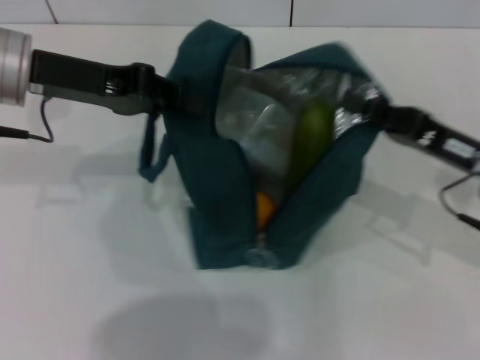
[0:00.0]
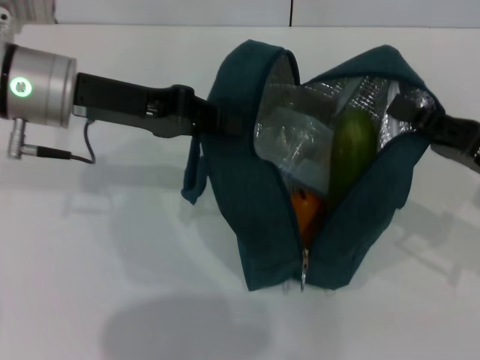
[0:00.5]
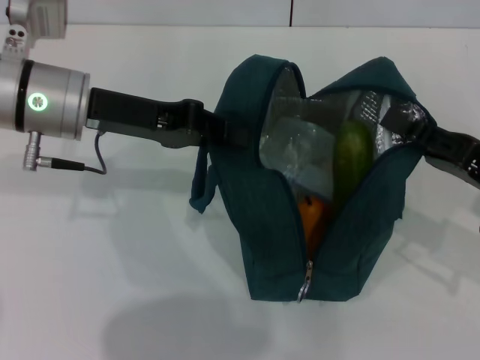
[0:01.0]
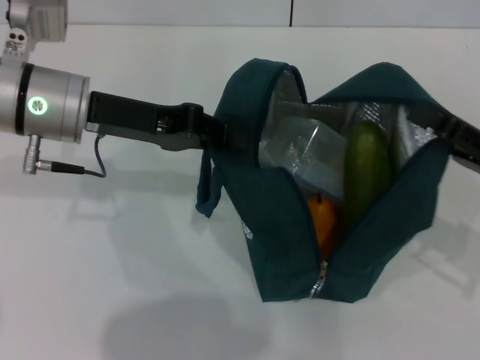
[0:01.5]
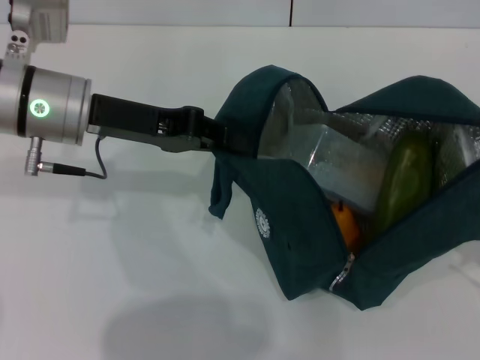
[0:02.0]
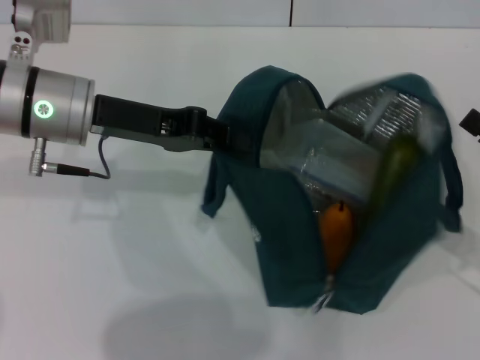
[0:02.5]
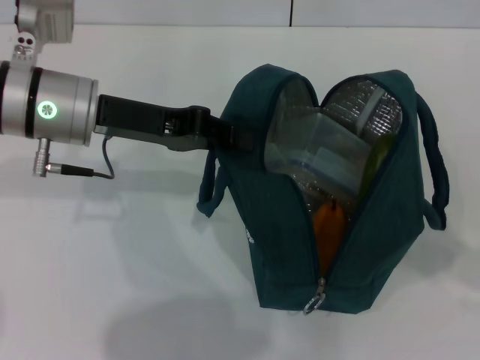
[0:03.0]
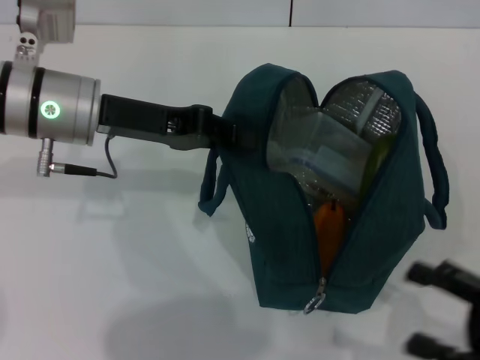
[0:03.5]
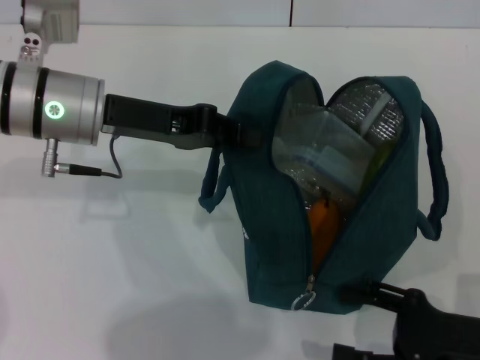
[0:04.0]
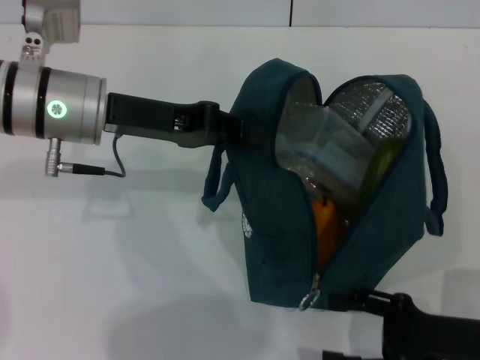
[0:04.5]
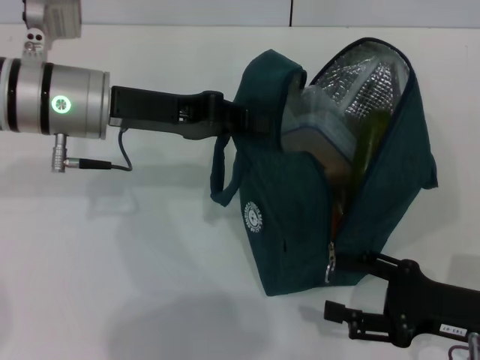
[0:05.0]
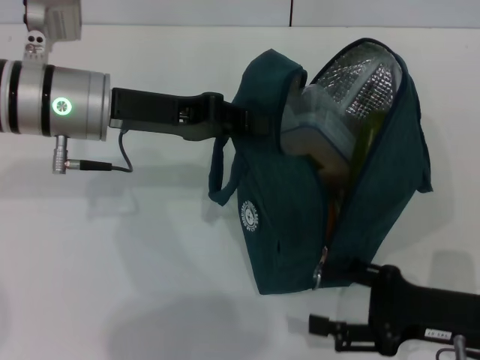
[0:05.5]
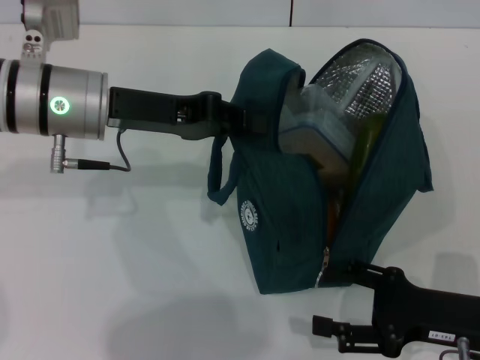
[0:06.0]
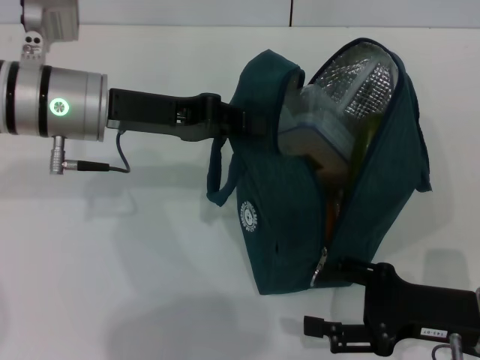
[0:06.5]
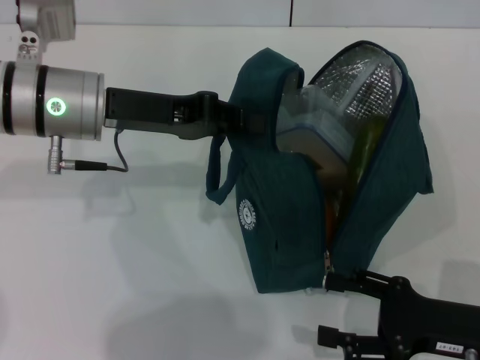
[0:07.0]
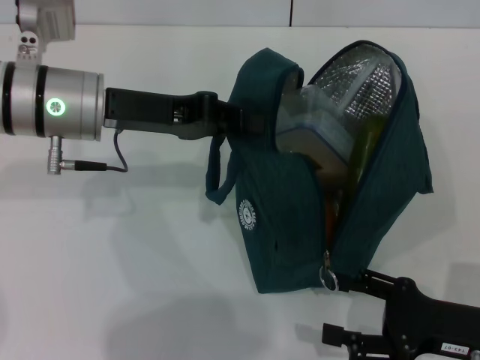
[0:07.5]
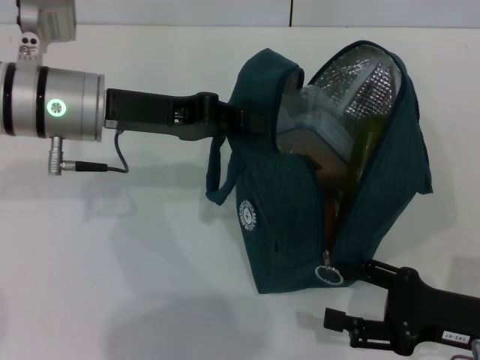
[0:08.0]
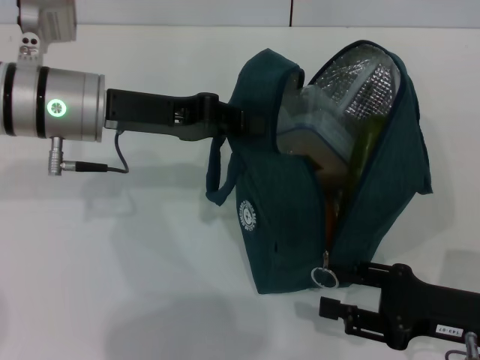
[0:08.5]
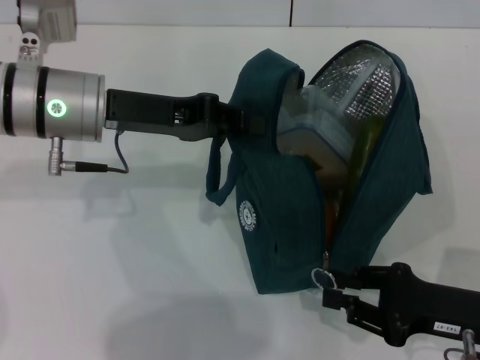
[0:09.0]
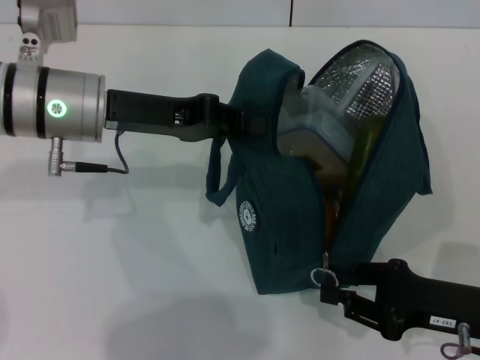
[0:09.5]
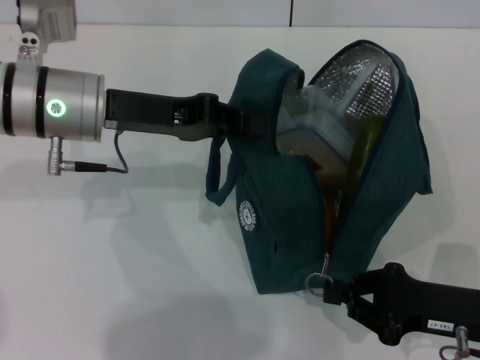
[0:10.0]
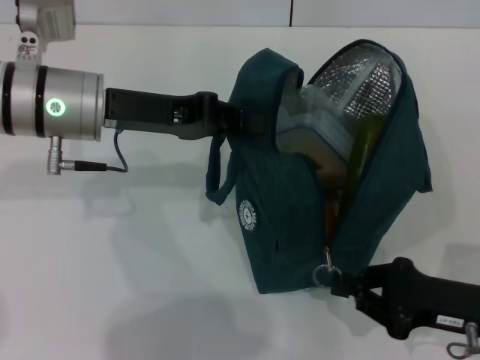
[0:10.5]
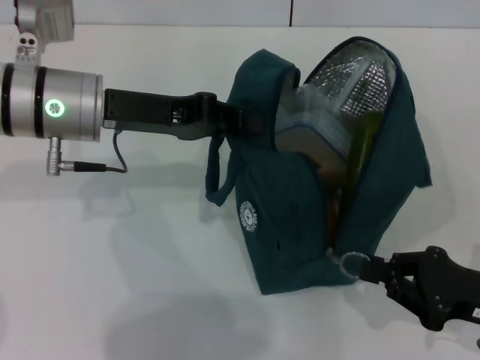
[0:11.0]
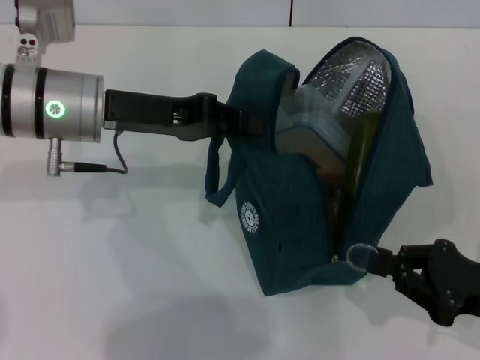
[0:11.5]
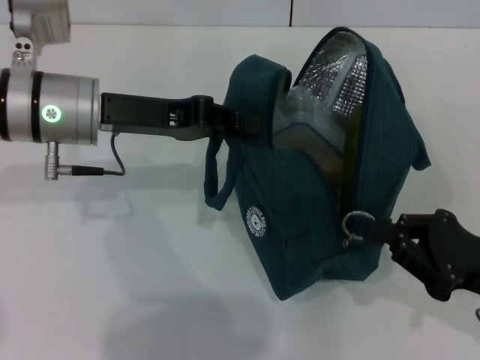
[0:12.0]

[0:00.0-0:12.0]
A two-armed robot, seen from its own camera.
Step, 0:00.0 to 0:02.0: Hold the lunch bag with your right hand.
0:00.0 to 0:02.0: The right gripper travels to the right and backward by roughly 10 cm, and opens up. Meanwhile the left gripper changes place by approximately 5 cm.
0:02.0 to 0:04.0: The right gripper moves downward, to the left and backward, approximately 10 cm.
0:06.0 to 0:08.0: The grippers move only a little.
0:08.0 to 0:10.0: The right gripper closes.

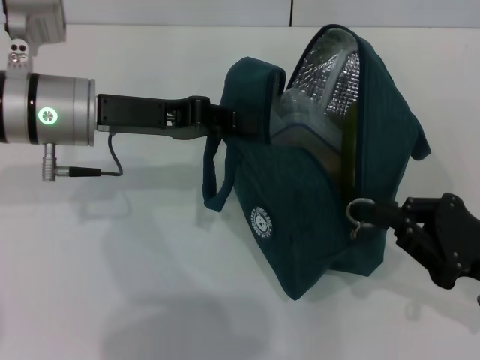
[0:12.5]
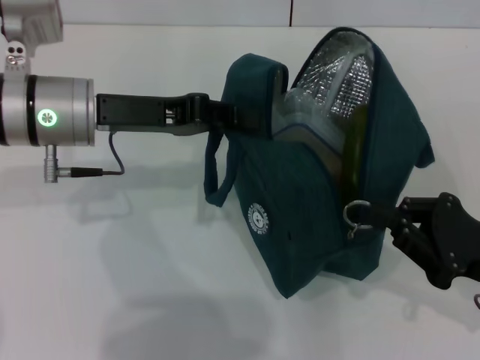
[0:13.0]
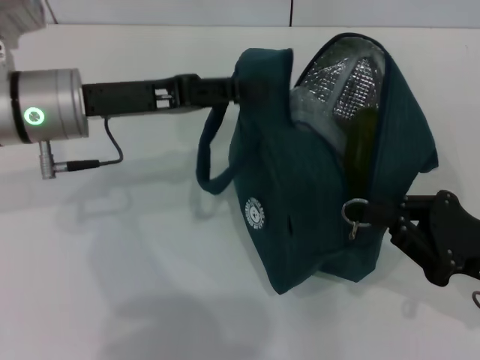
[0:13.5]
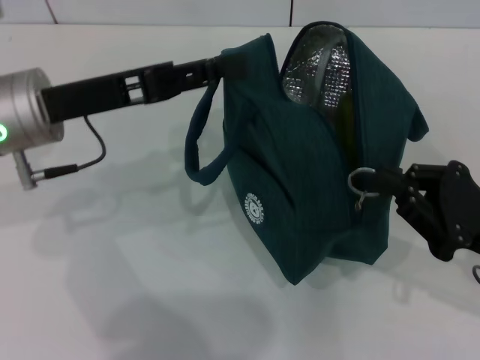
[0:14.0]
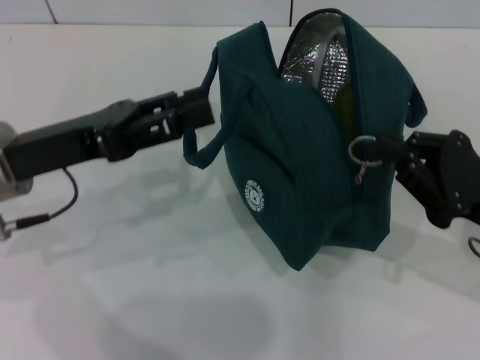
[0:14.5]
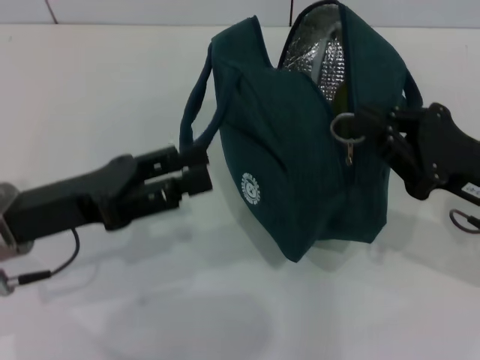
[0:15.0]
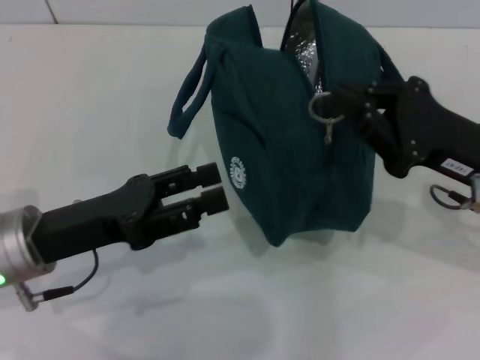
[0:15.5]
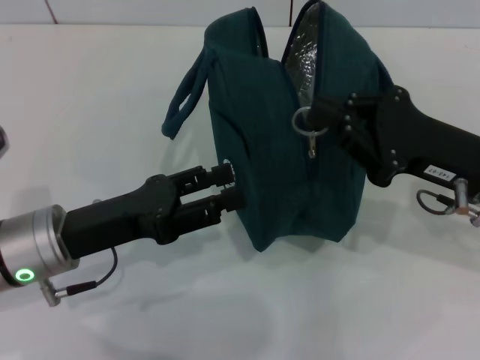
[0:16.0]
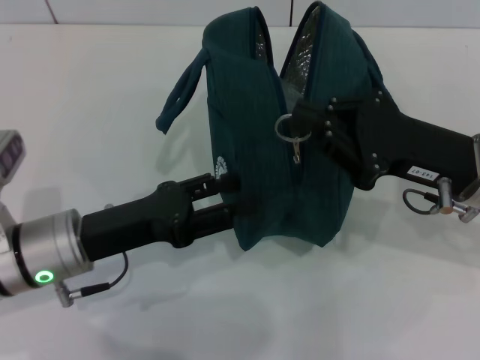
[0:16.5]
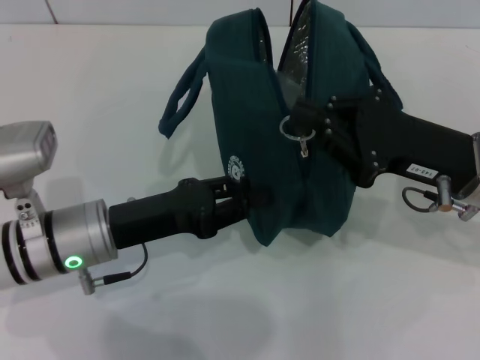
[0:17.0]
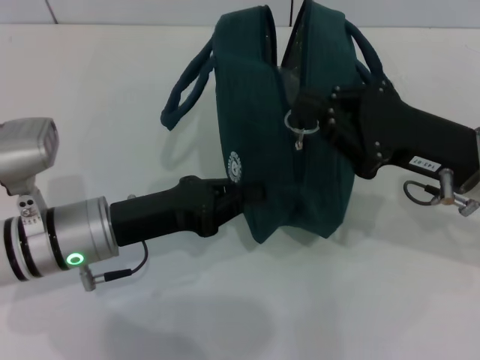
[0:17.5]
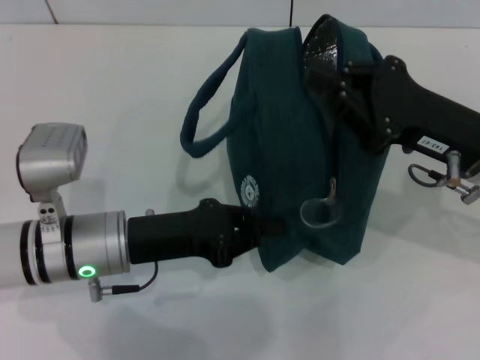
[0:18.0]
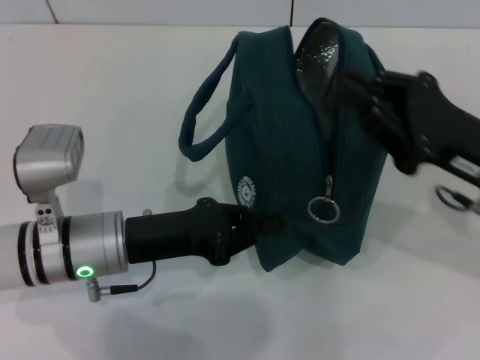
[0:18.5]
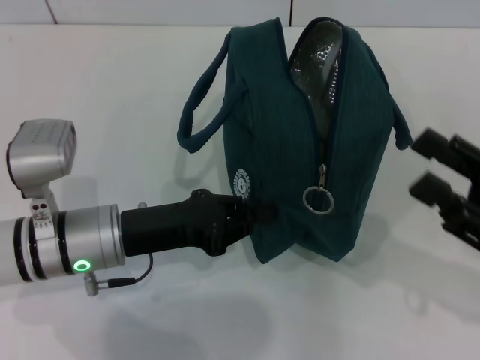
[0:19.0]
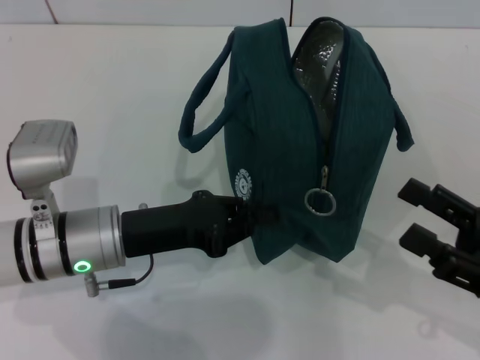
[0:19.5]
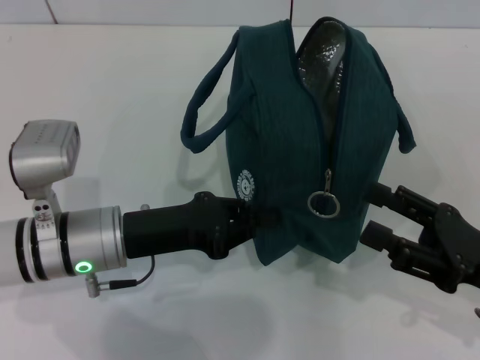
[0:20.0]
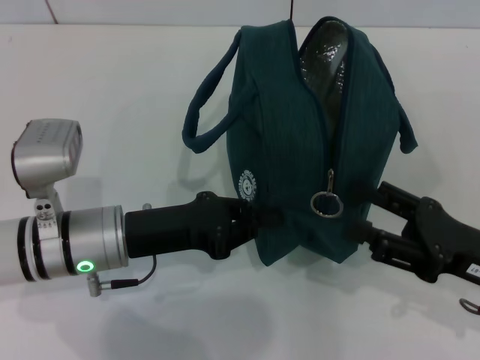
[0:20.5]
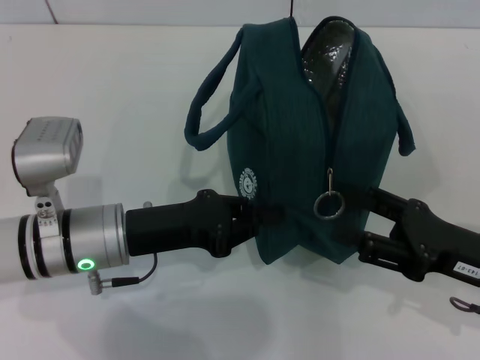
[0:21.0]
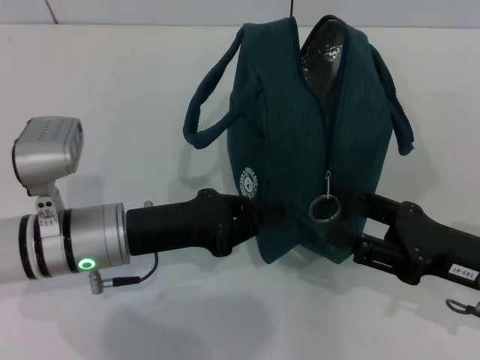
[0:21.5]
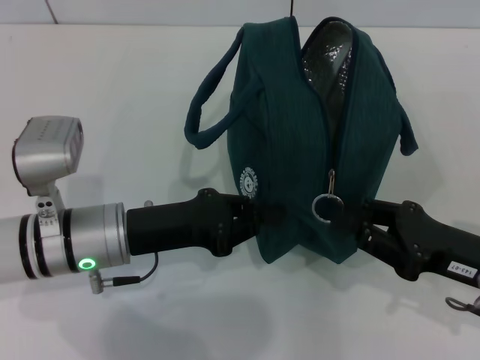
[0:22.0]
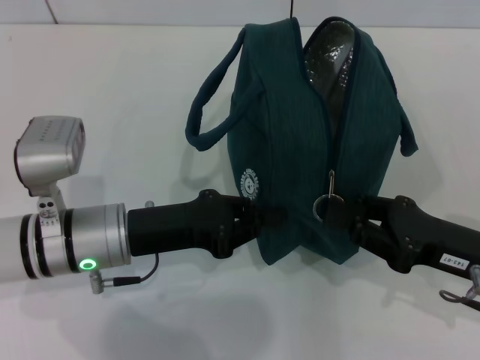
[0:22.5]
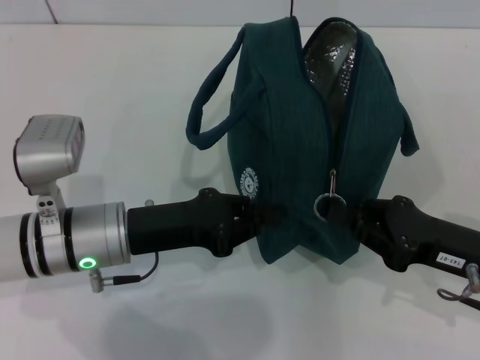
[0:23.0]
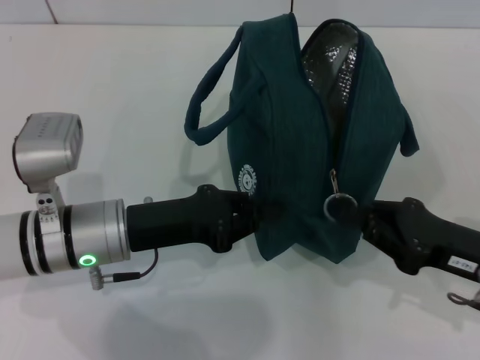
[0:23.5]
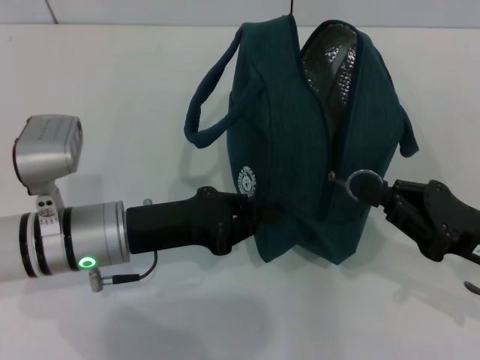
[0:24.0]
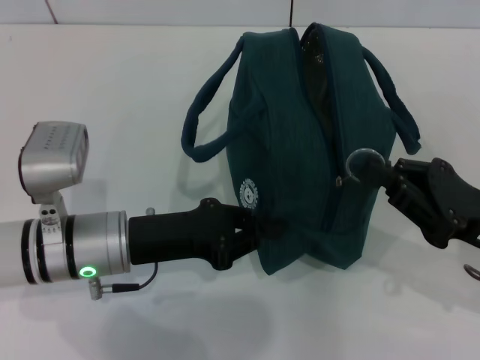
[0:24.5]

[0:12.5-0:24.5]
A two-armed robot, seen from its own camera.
0:12.5 to 0:14.5: The left gripper goes roughly 5 cm backward, and opens up.
0:14.5 to 0:16.5: The left gripper heads downward, covering approximately 10 cm. The right gripper travels to the left by some 5 cm.
0:16.5 to 0:18.5: The left gripper closes its fingers.
0:18.5 to 0:20.5: The right gripper travels backward and downward by approximately 10 cm, and opens its fingers.
0:20.5 to 0:22.5: The right gripper closes.
0:22.5 to 0:24.5: The grippers move only a little.

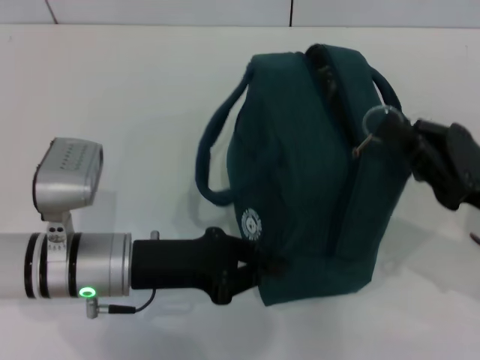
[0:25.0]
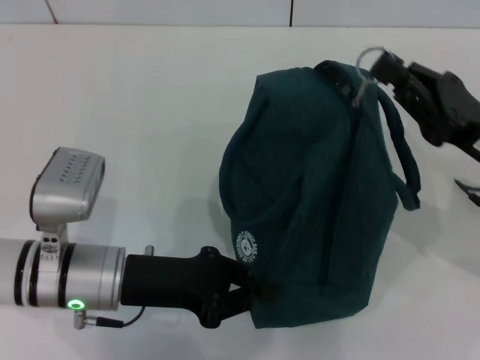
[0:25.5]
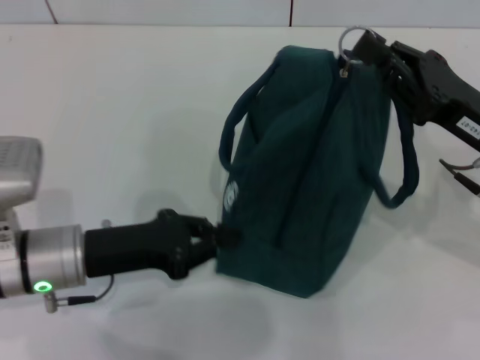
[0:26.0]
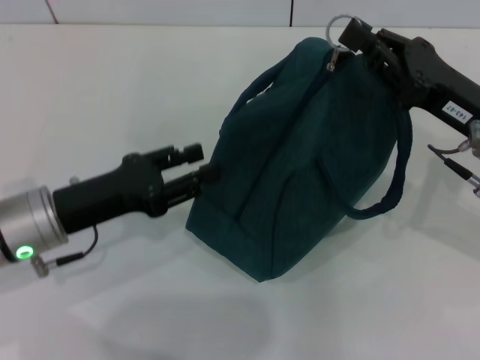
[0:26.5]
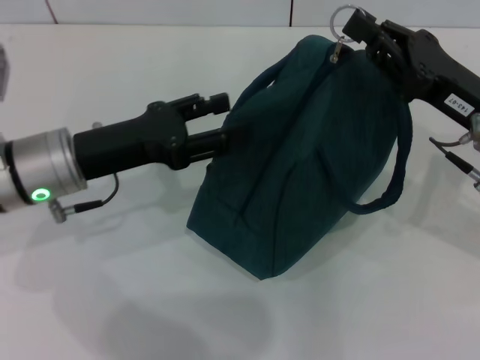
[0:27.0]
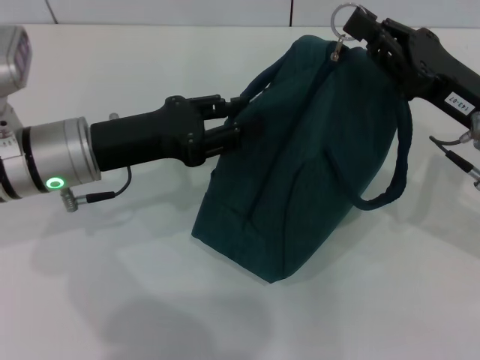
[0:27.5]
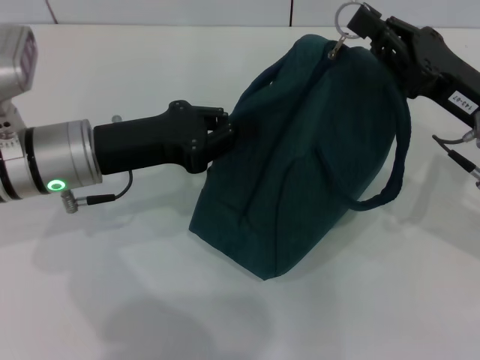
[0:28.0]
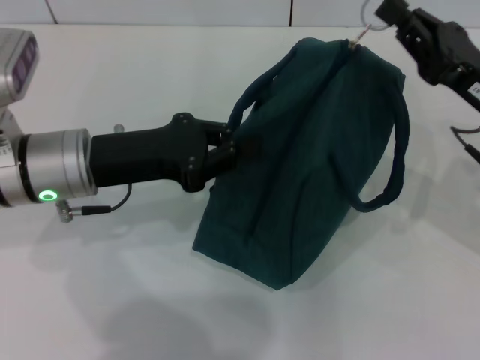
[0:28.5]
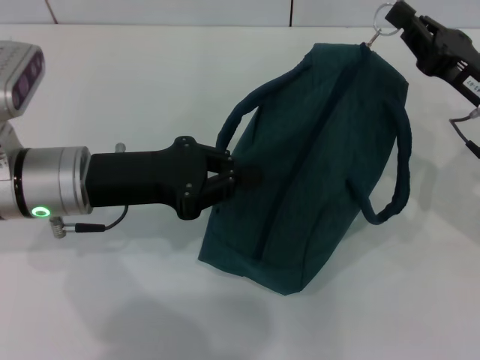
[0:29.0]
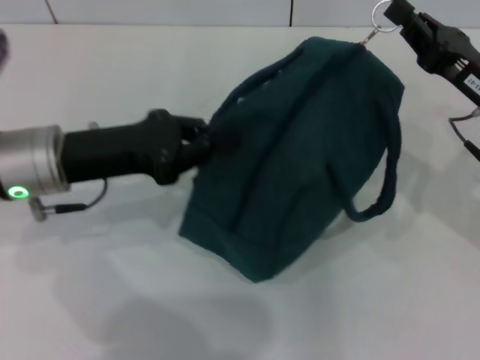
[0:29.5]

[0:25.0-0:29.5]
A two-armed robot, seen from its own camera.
0:25.0 to 0:27.0: The right gripper moves forward, approximately 5 cm; the left gripper heads upward and forward, covering some 10 cm, and opens up.
0:27.0 to 0:29.5: The left gripper closes.
